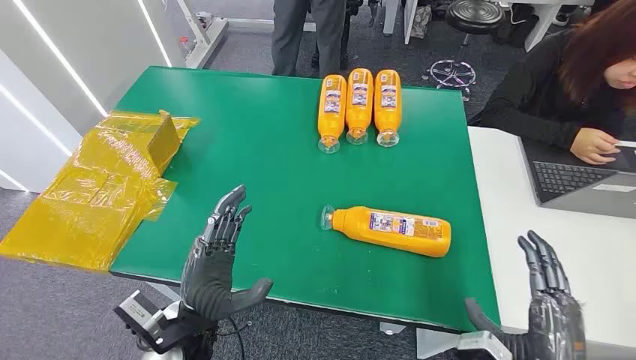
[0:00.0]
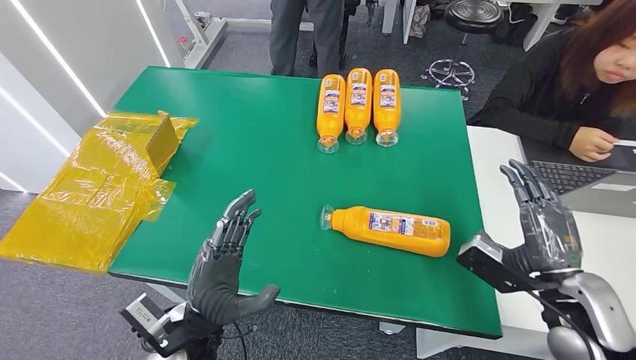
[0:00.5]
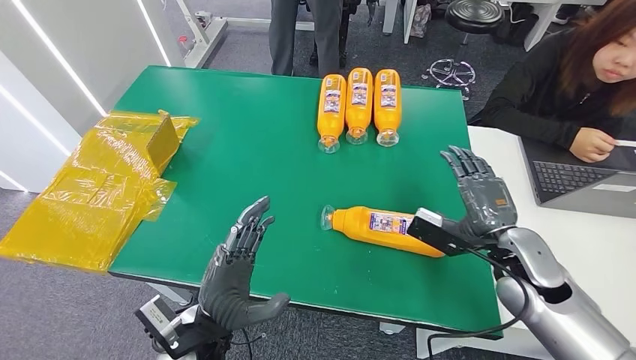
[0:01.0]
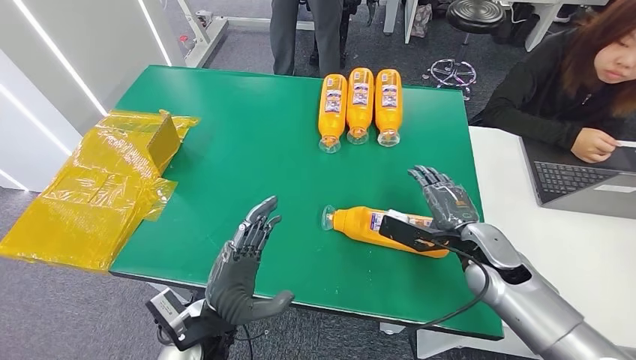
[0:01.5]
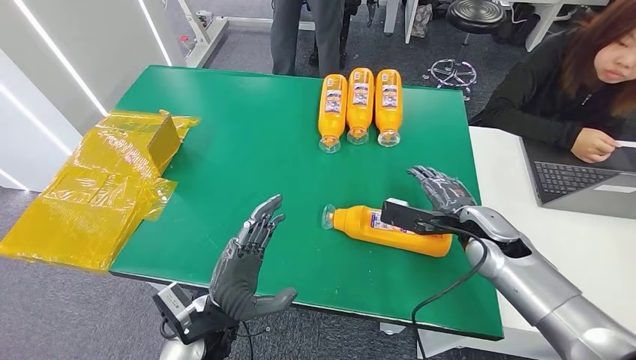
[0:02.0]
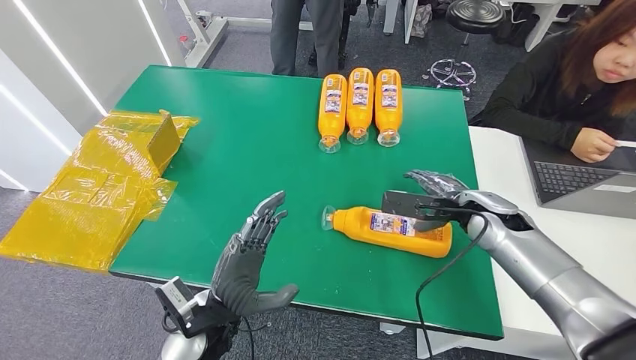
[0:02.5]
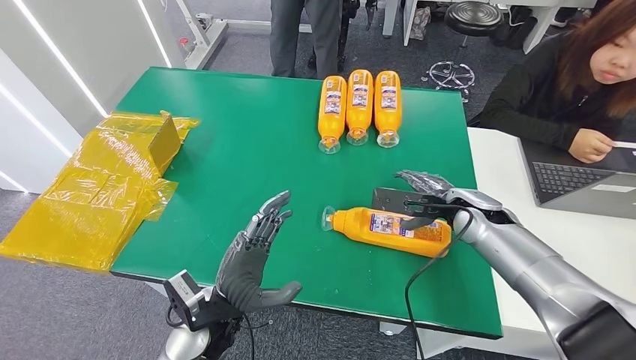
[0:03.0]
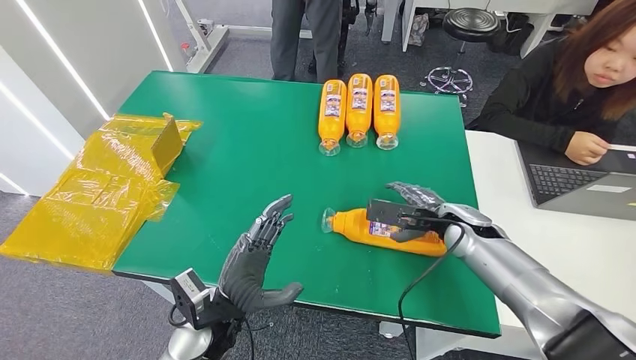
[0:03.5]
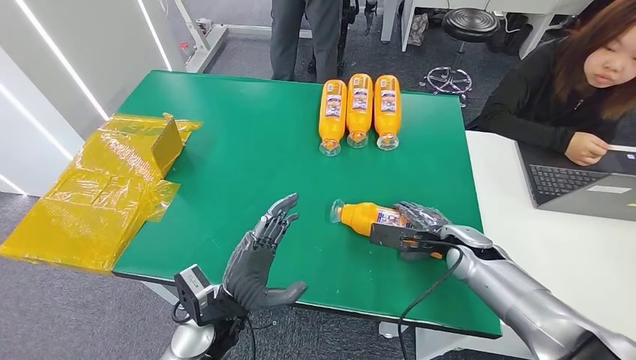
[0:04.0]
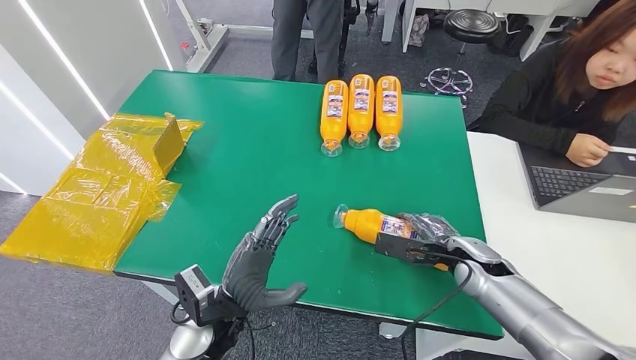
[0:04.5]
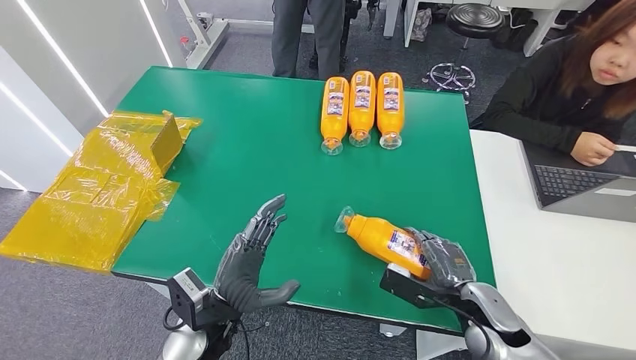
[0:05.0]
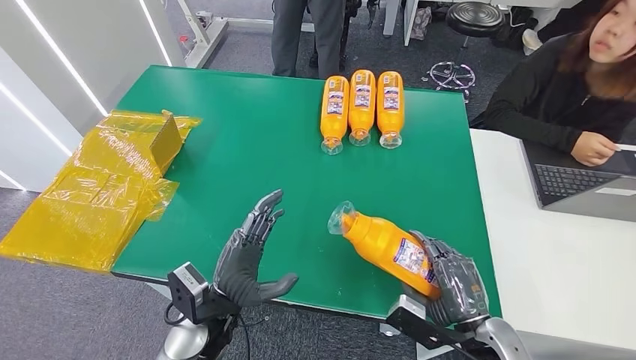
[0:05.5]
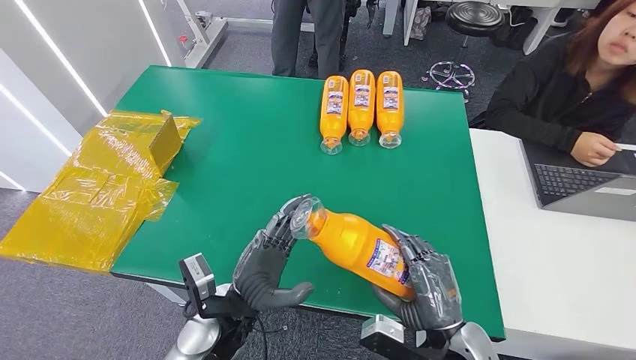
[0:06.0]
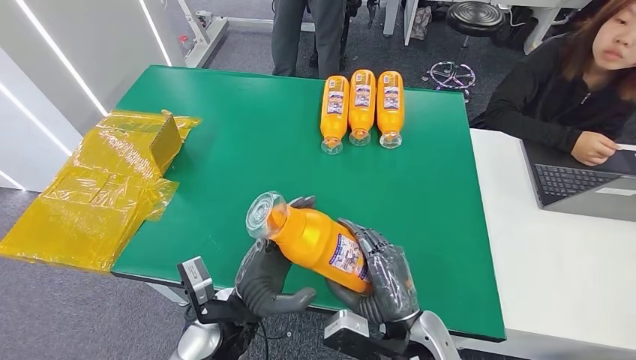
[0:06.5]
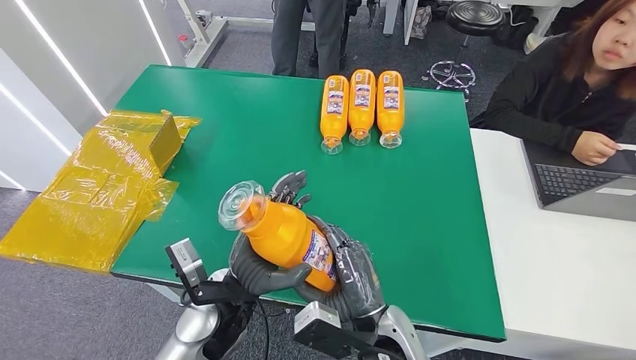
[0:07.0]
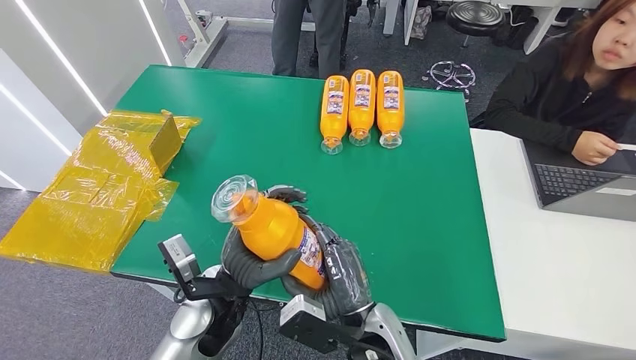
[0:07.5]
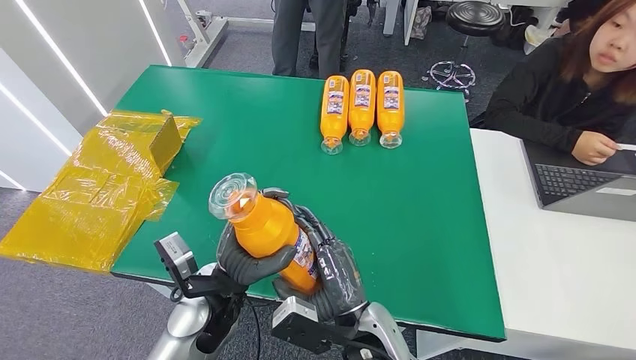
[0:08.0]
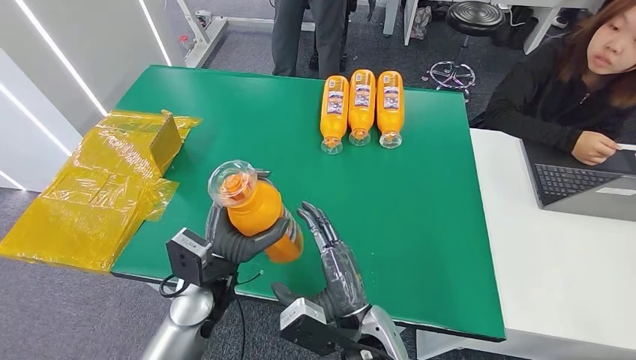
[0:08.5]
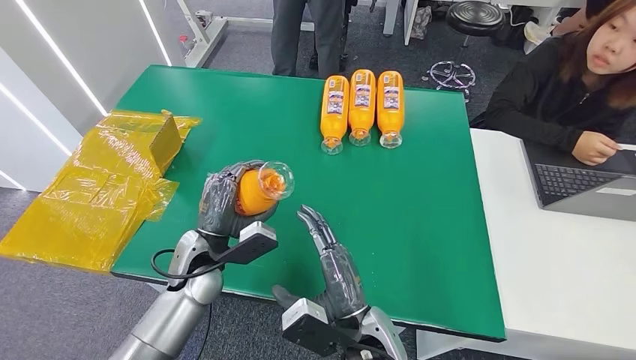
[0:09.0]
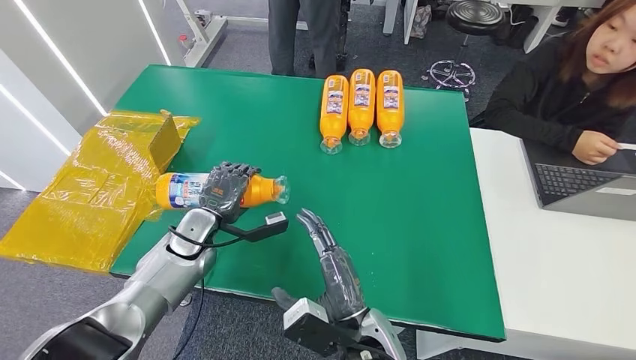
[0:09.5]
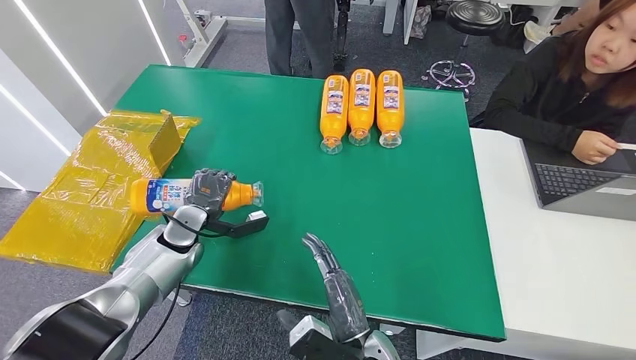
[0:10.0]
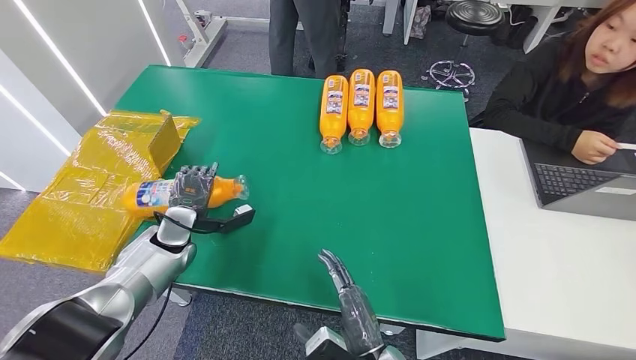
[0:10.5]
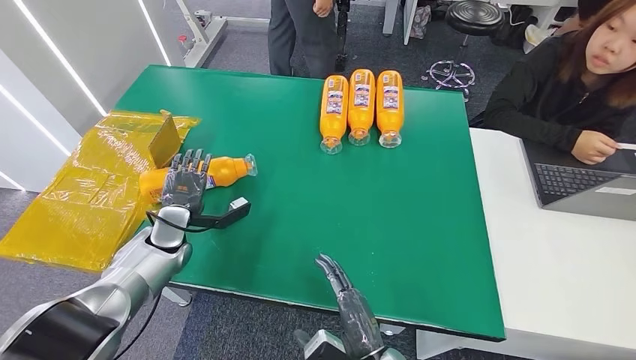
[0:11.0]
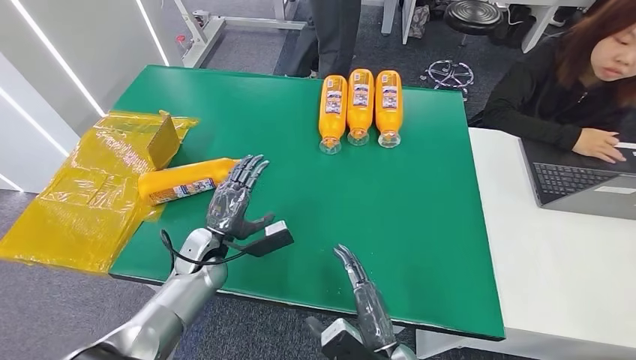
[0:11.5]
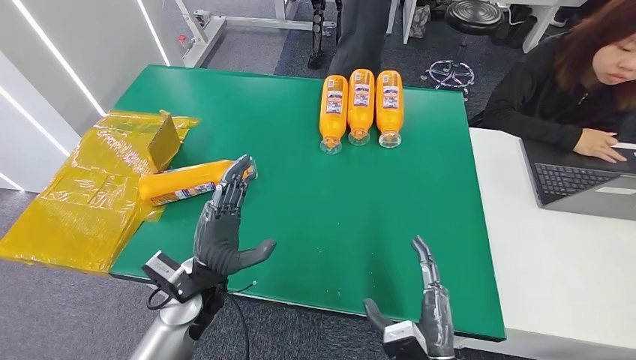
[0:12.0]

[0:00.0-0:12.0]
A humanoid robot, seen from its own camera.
Step, 0:00.0 to 0:05.5: Pick up the bottle from the table.
Step, 0:06.0 to 0:12.0: Turn the bottle to the front side.
0:06.0 to 0:08.0: The right hand shifts some 15 cm to the left.
0:08.0 to 0:10.0: The right hand moves about 5 cm, while the left hand is displaced to the left and forward by approximately 20 cm.
0:10.0 to 0:12.0: The right hand is displaced to the right by about 10 cm, while the left hand shifts approximately 15 cm to the right and backward.

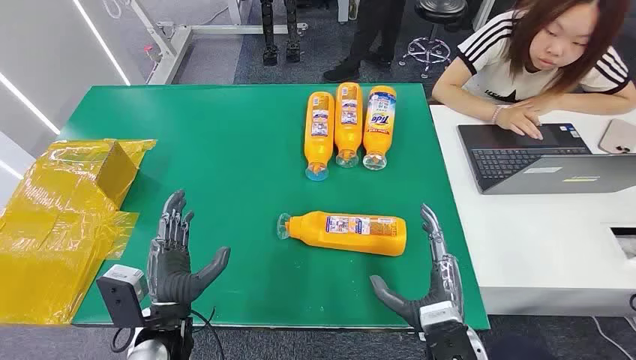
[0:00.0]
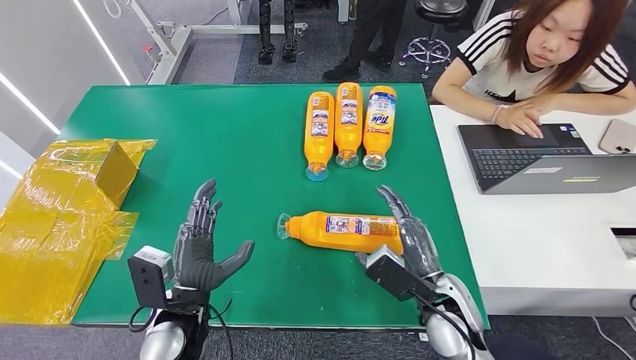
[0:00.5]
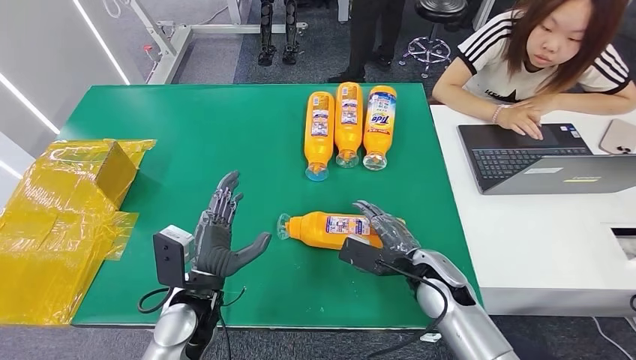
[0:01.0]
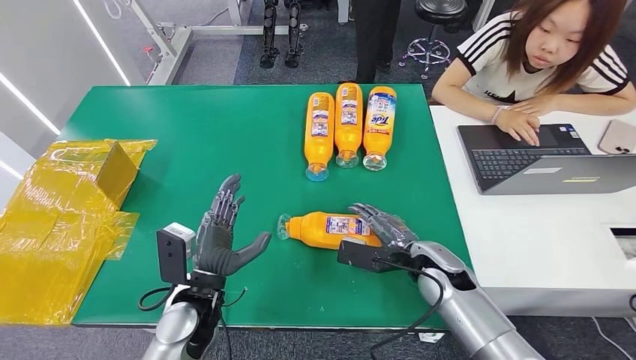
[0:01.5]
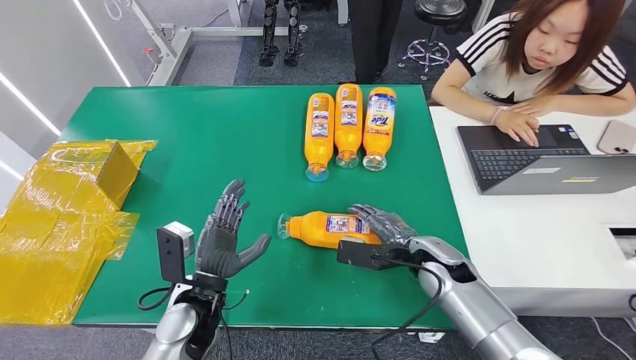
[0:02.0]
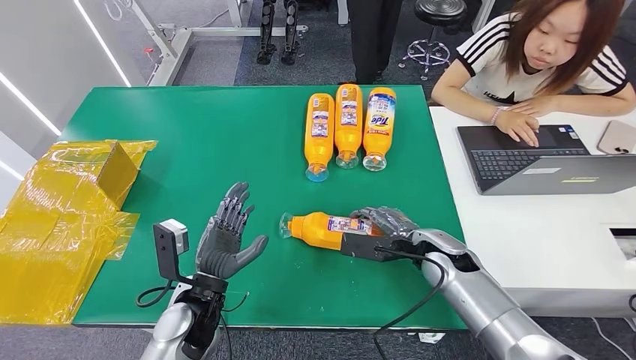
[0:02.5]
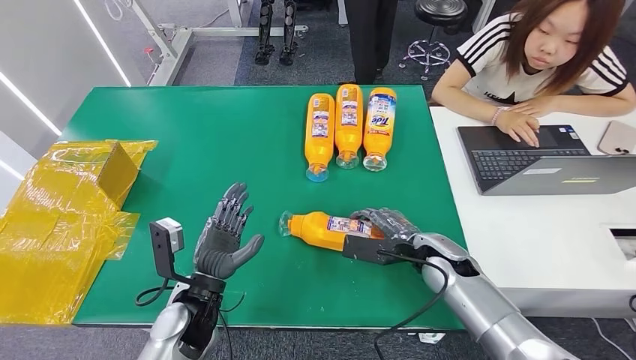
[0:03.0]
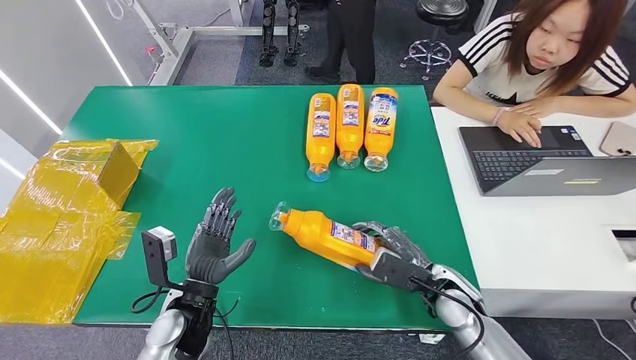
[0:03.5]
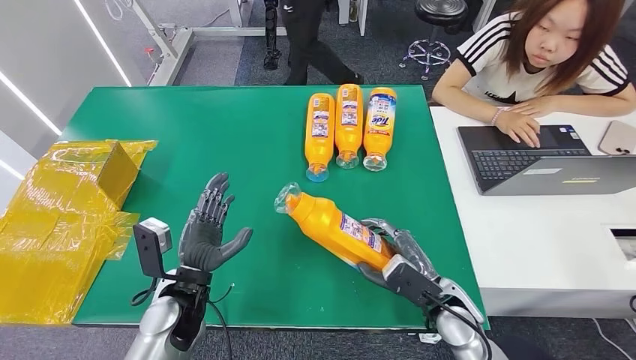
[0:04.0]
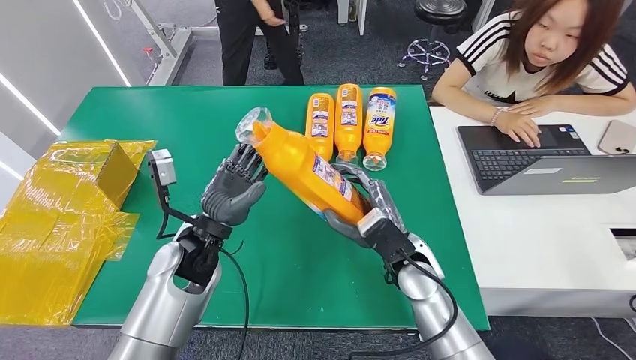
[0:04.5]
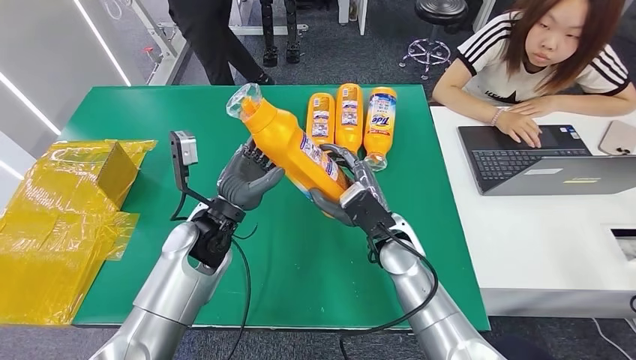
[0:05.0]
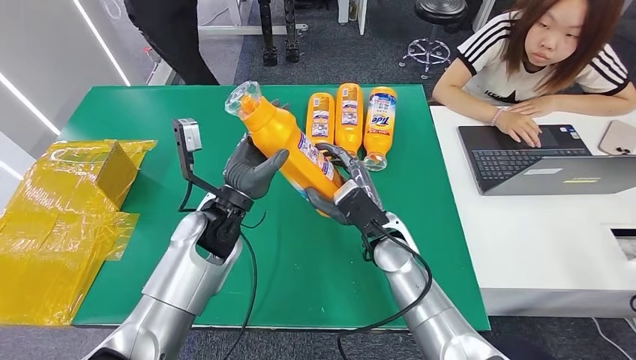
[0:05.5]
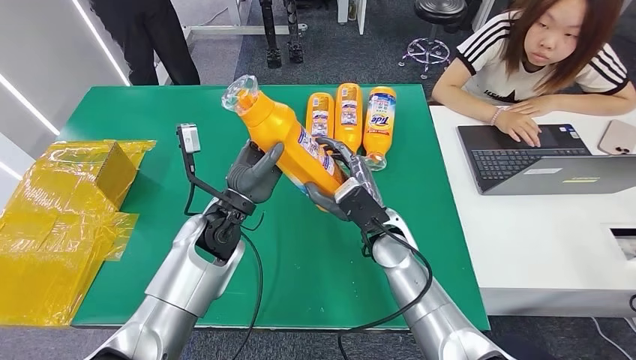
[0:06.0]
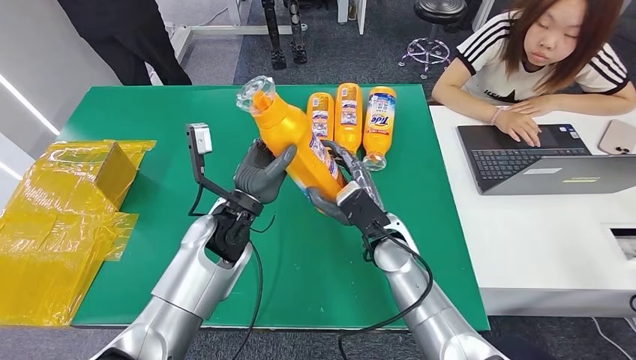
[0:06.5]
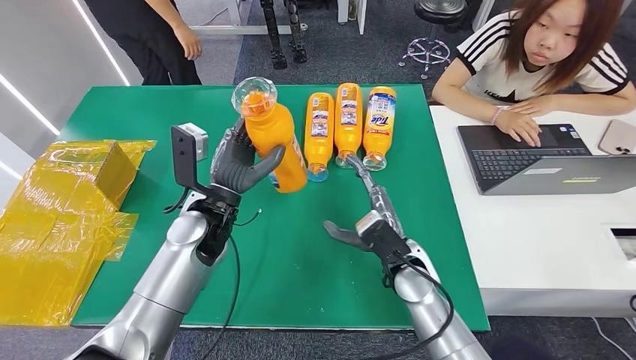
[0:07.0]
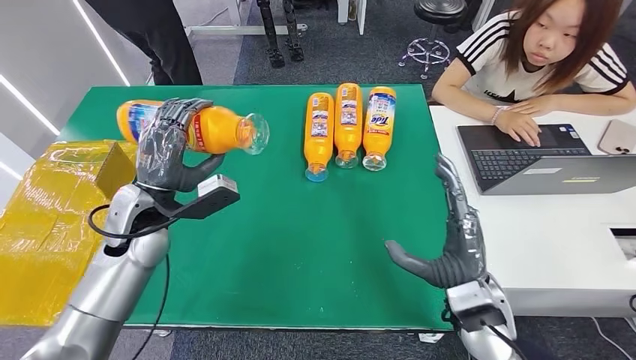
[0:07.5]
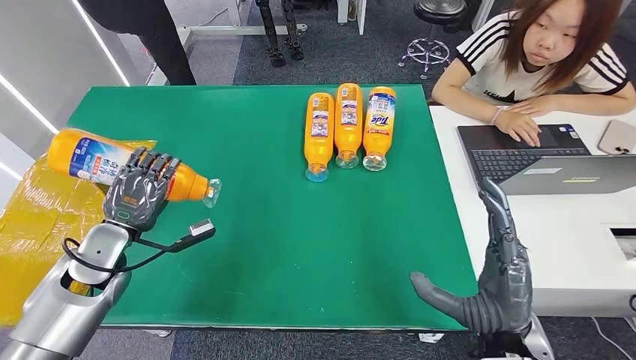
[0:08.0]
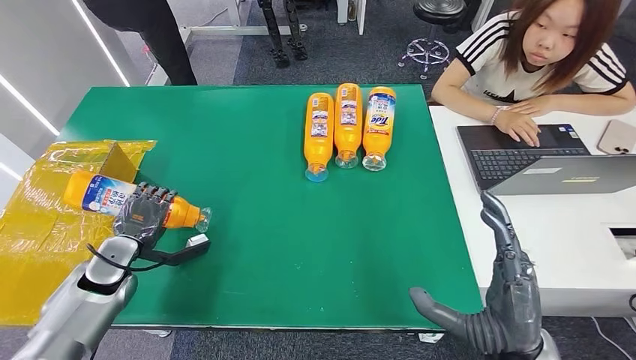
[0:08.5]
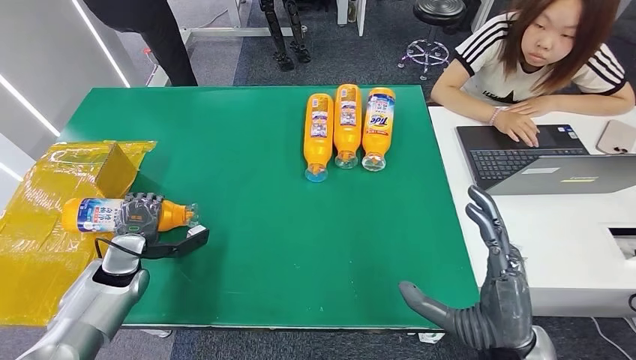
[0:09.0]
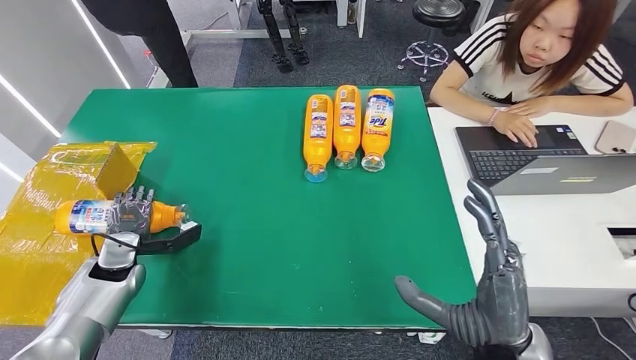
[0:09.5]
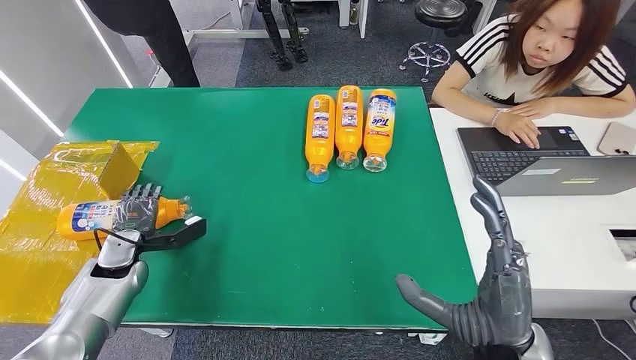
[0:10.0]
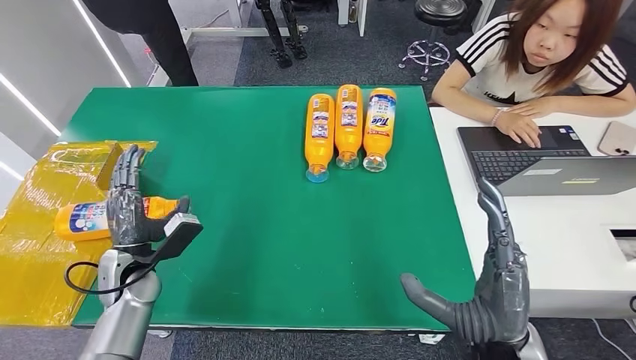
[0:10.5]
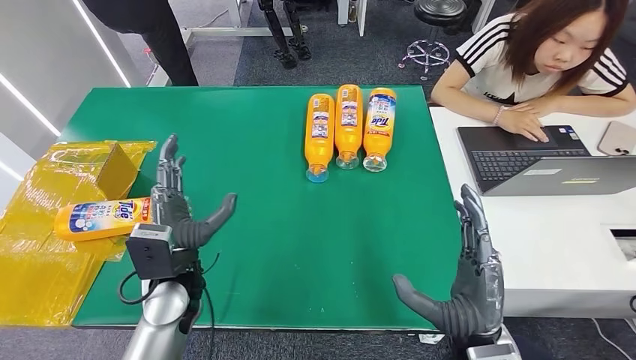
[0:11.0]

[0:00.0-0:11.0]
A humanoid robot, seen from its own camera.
Step, 0:00.0 to 0:04.5: Pick up the bottle from the table.
Step, 0:05.0 to 0:11.0: Turn the bottle to the front side.
0:02.0 to 0:03.5: The right hand changes place by roughly 5 cm.
0:09.0 to 0:11.0: The left hand is displaced to the right, upward and backward by roughly 20 cm.
